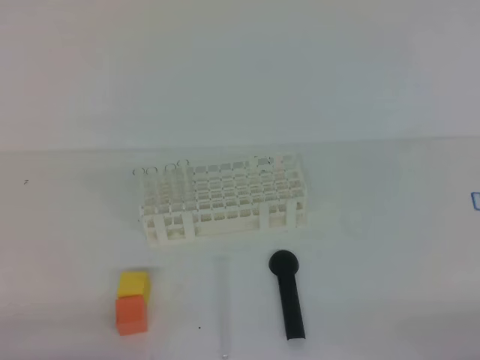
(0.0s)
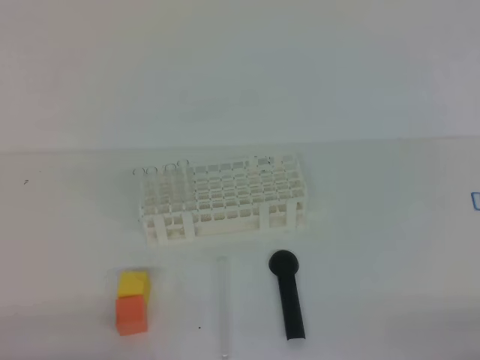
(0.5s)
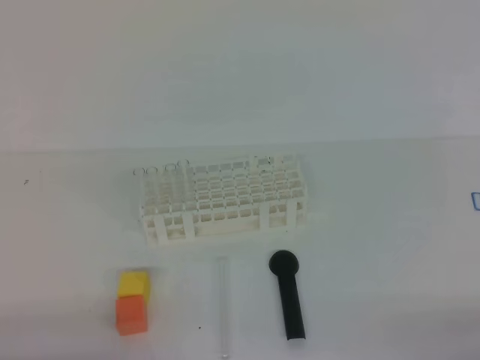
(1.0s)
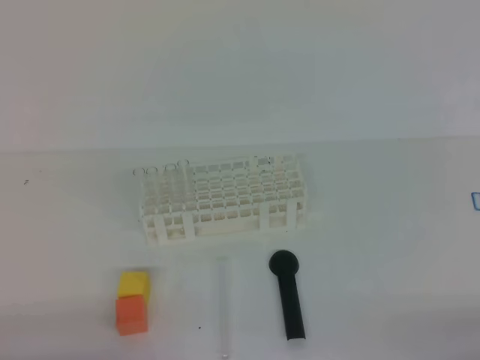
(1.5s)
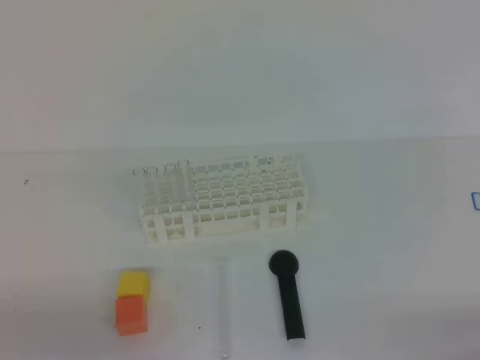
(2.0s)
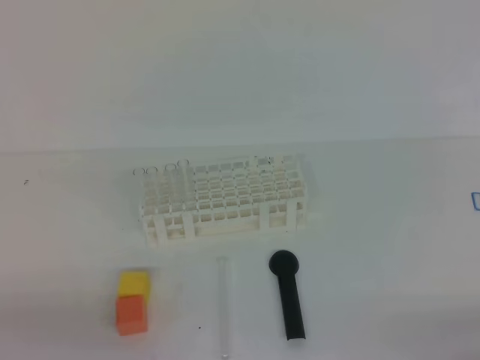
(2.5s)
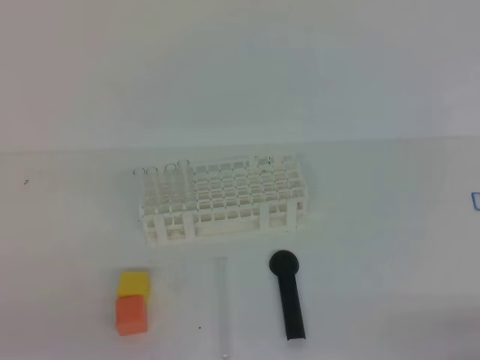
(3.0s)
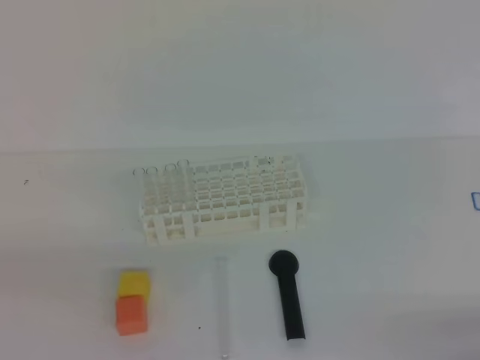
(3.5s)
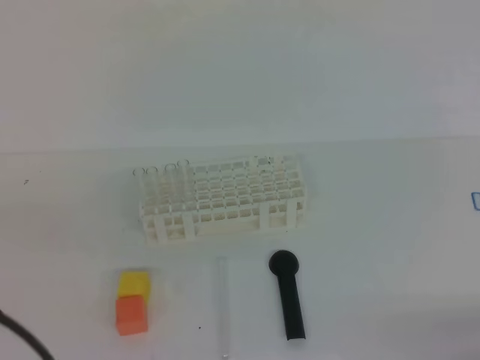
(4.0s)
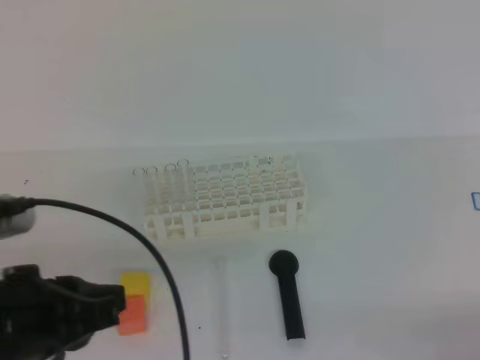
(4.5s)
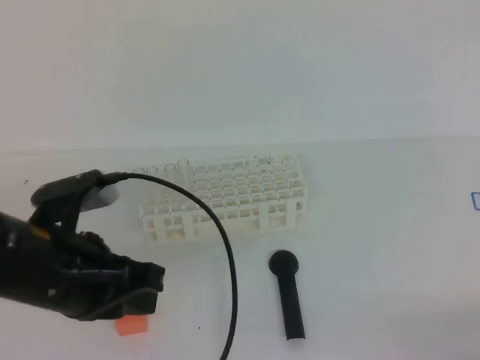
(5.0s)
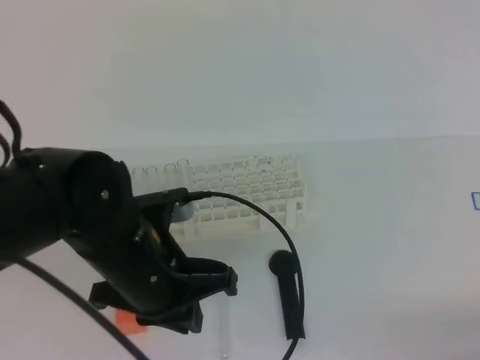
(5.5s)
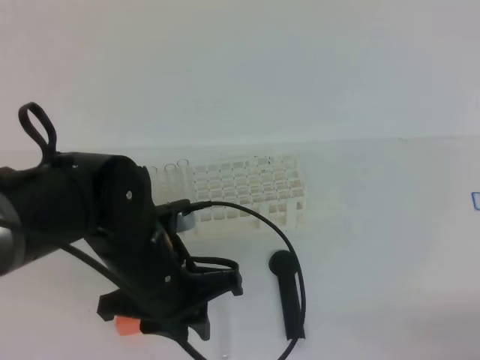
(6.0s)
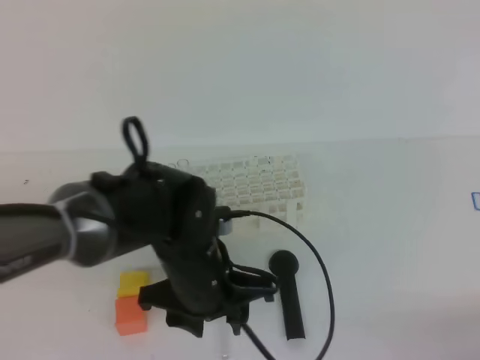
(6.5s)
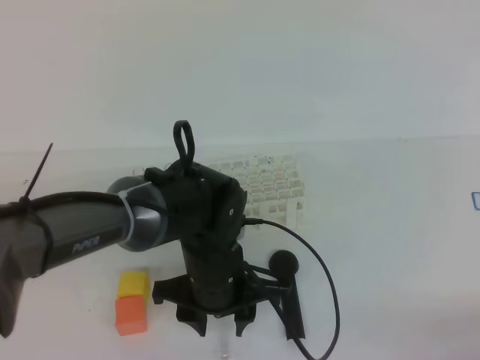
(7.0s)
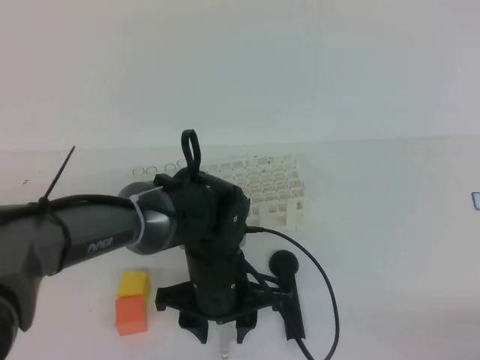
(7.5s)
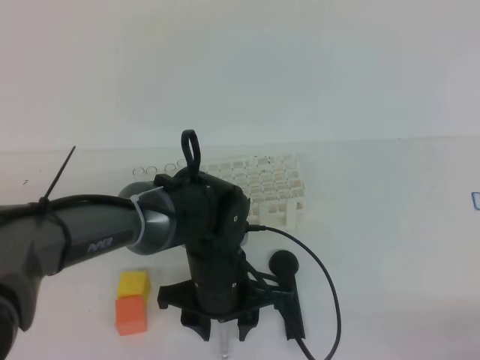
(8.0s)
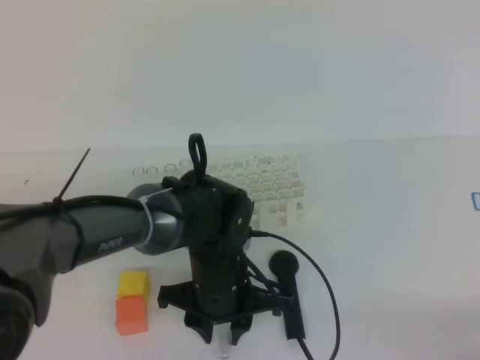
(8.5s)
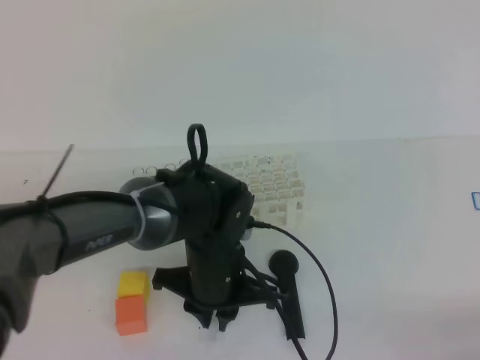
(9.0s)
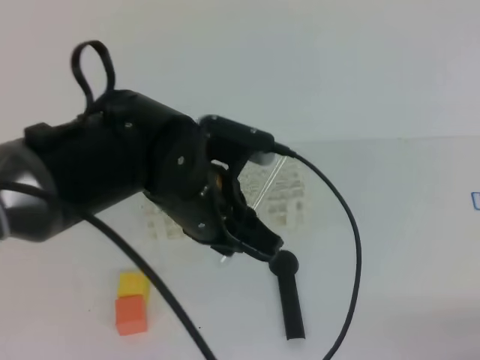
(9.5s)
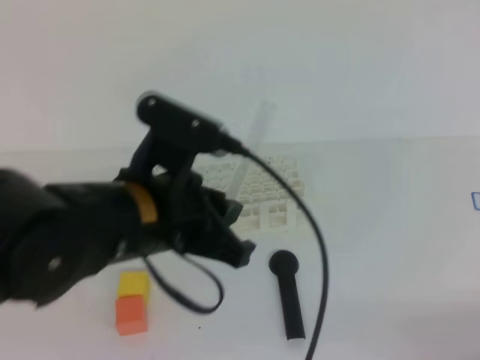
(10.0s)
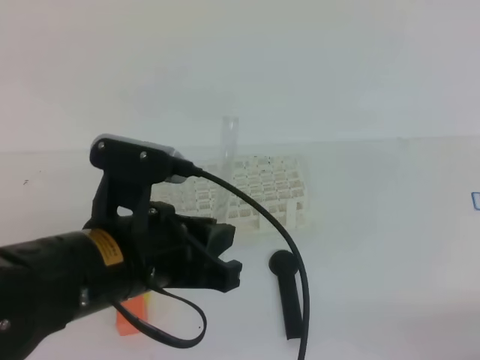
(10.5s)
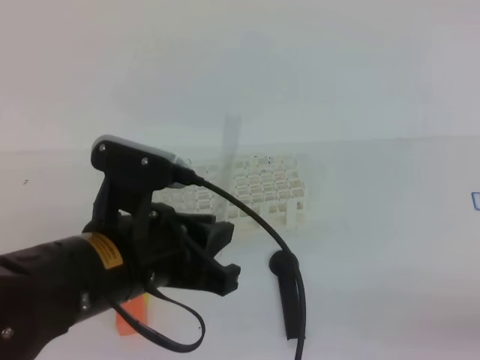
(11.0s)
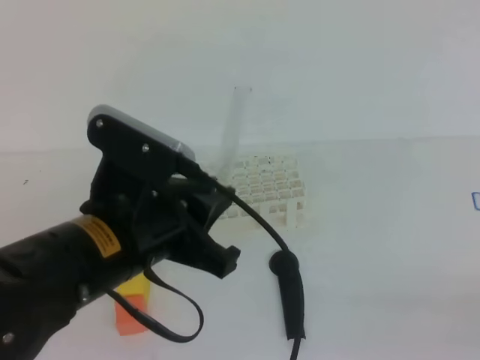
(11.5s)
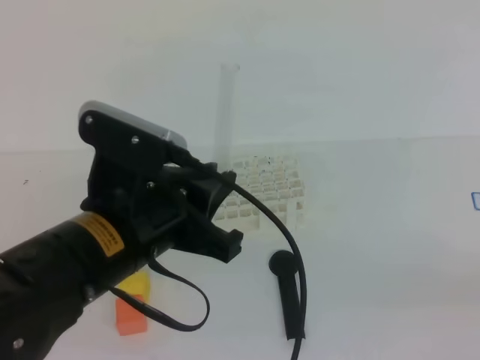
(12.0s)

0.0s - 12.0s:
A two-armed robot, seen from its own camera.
4.0s - 6.0s: The left gripper moves forward, to the right and downward, some 25 cm, and opens its fingers.
6.0s - 8.0s: The left gripper is displaced downward and to the right by approximately 10 cm, and opens.
8.0s - 10.0s: The left gripper travels upward by about 15 cm, and closes.
10.0s - 12.0s: The right gripper goes approximately 10 cm upward.

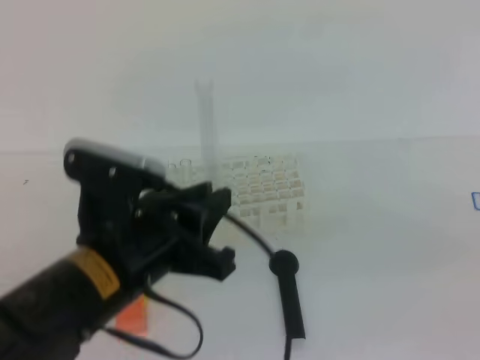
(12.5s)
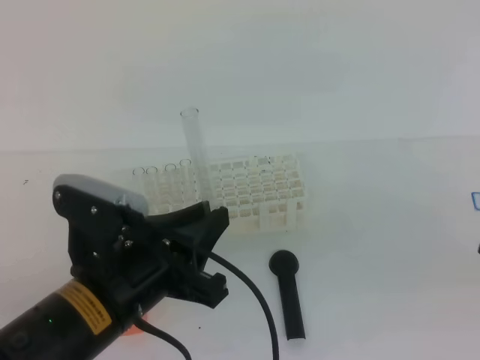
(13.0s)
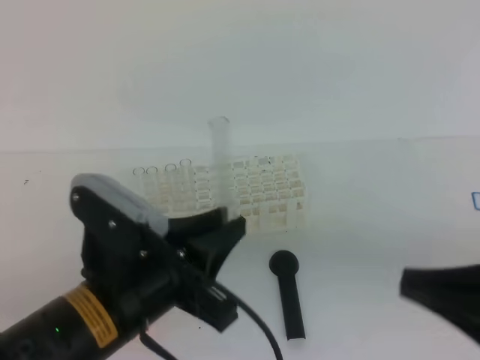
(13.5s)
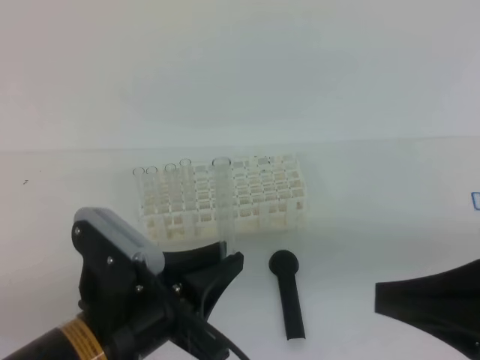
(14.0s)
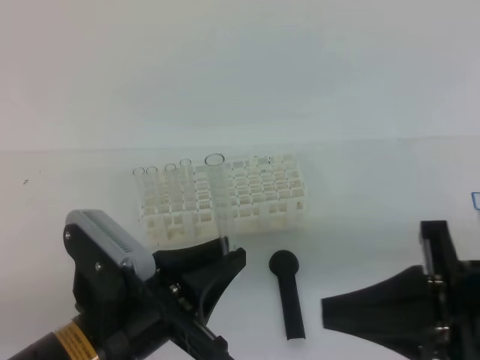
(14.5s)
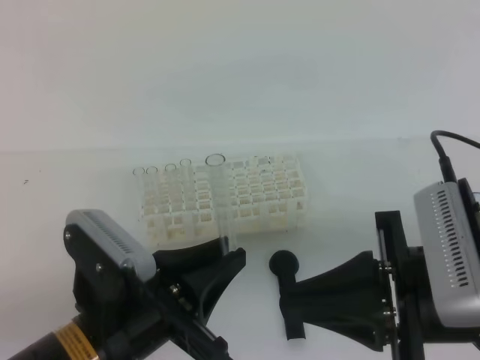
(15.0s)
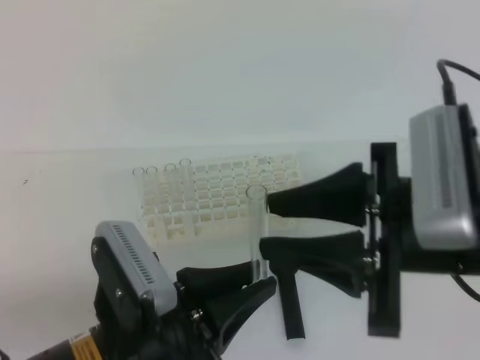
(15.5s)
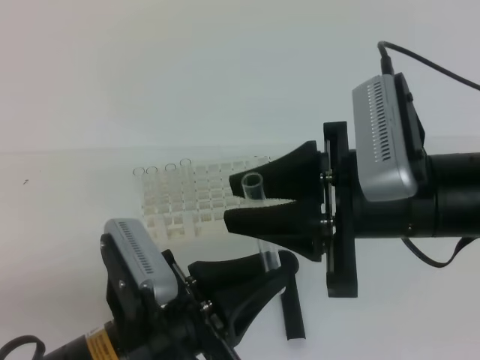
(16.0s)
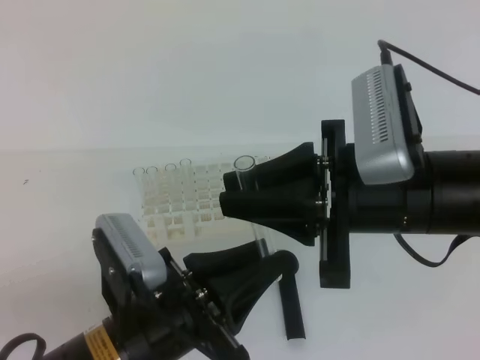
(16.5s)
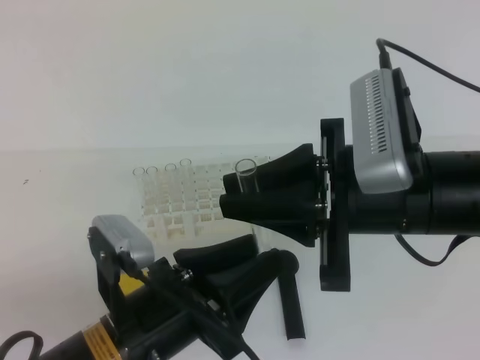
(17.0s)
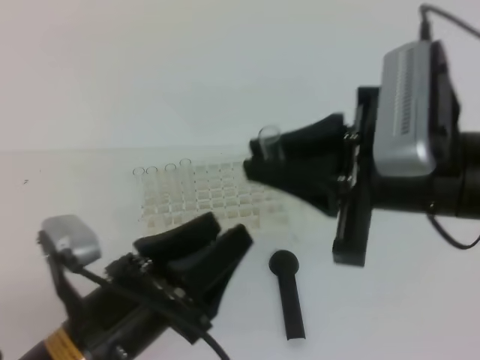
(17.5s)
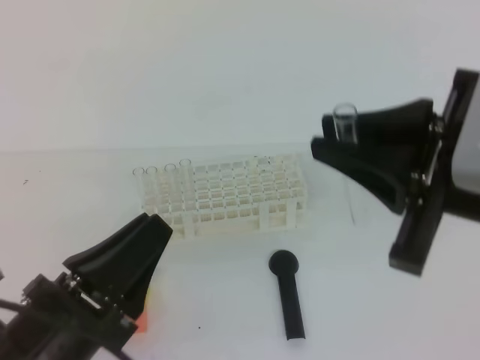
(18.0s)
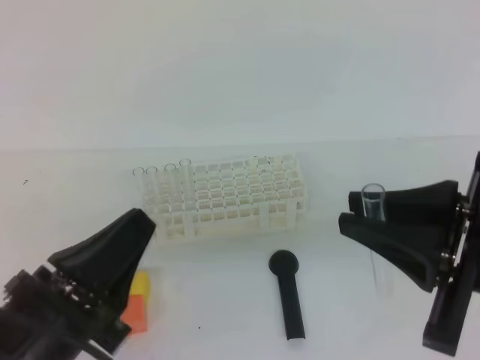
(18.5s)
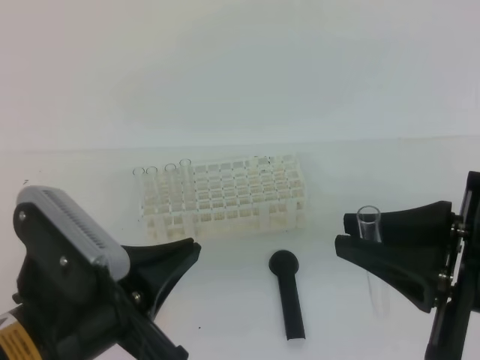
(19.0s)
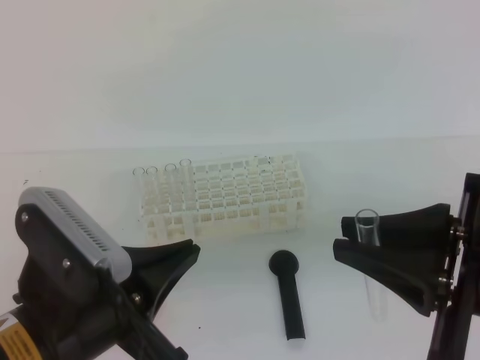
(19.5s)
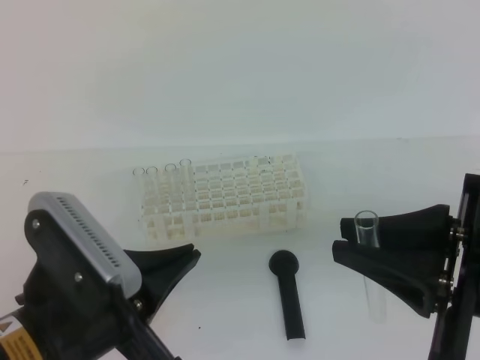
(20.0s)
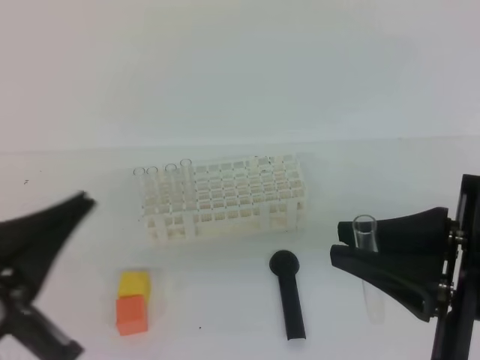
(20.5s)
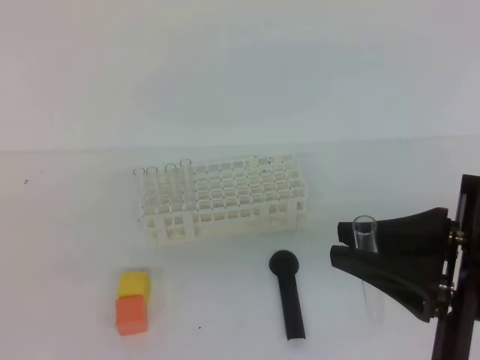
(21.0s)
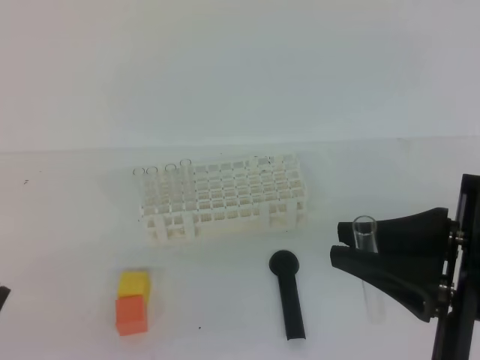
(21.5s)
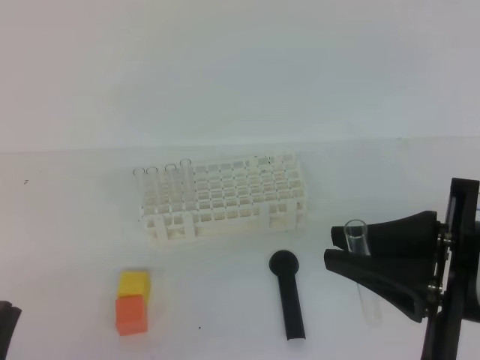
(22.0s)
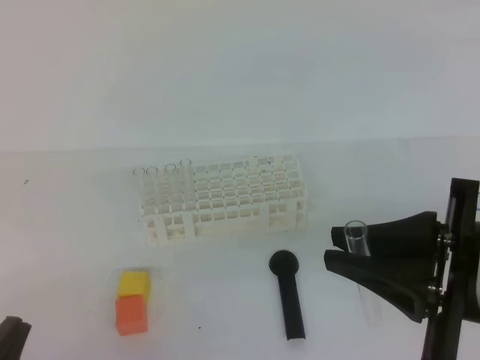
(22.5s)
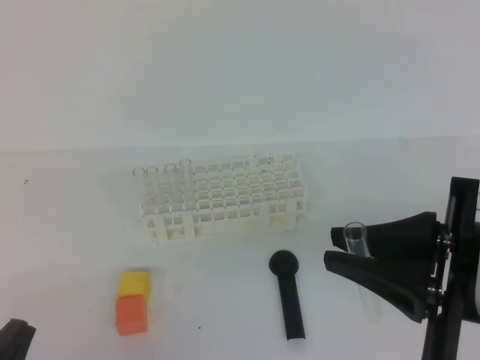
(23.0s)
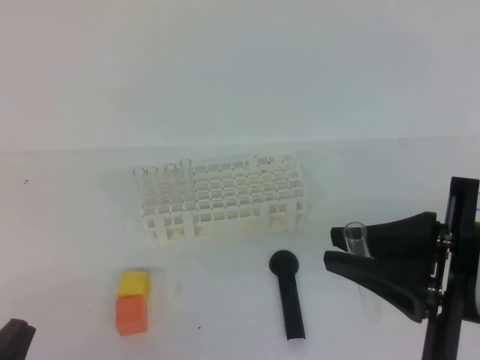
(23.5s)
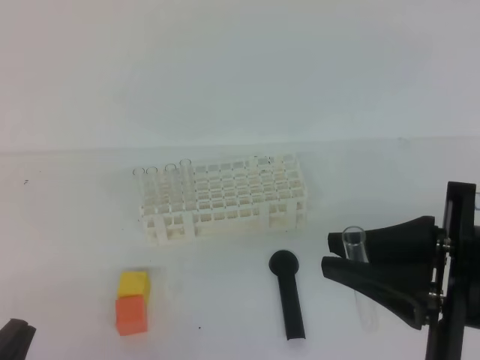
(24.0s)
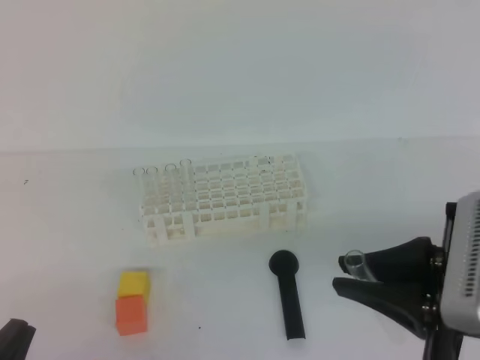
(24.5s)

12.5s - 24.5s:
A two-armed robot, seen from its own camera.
12.5s - 14.5s: The left gripper ends up approximately 5 cm from where it was. Meanwhile the right gripper moves to the left and forward, about 15 cm.
14.5s - 16.5s: The right gripper heads forward and to the left, covering some 10 cm, and opens up.
16.5s - 18.5s: The left gripper is displaced to the left by about 5 cm, and opens, then closes again. Meanwhile the right gripper moves to the right and backward, approximately 10 cm.
18.5s - 20.5s: The left gripper goes about 5 cm upward.
20.5s - 22.5s: The left gripper shifts some 10 cm downward and backward.
22.5s - 24.5s: The grippers stay close to where they were, moving slightly.

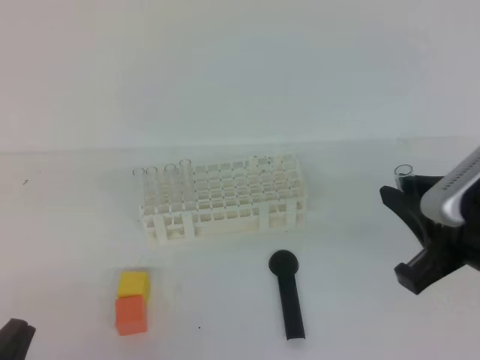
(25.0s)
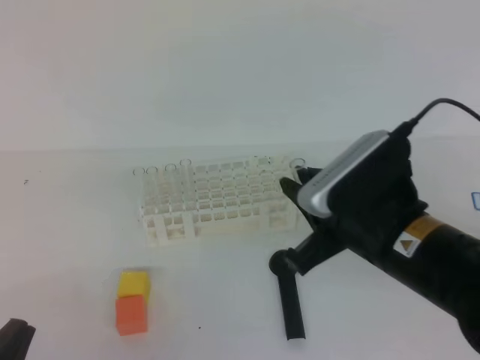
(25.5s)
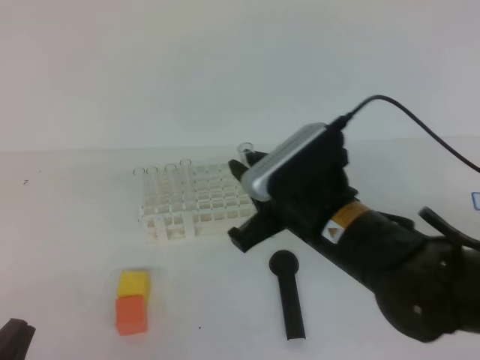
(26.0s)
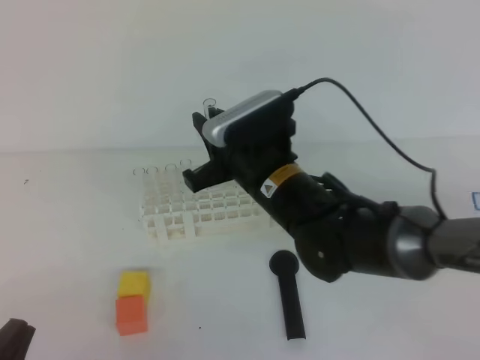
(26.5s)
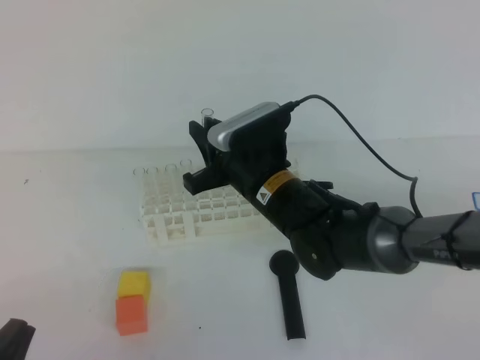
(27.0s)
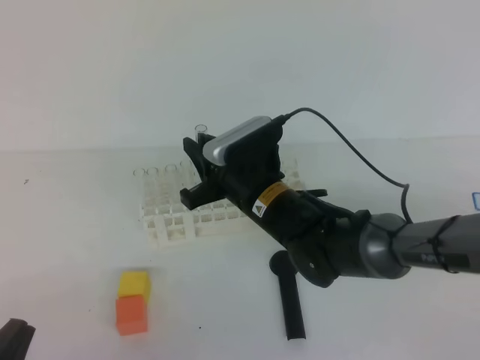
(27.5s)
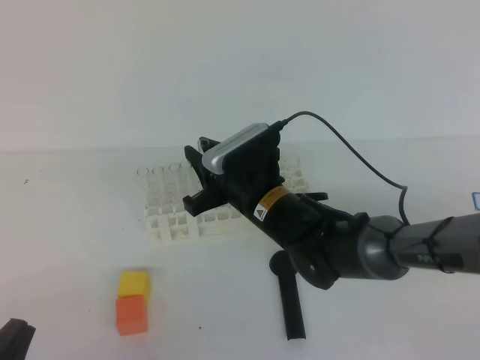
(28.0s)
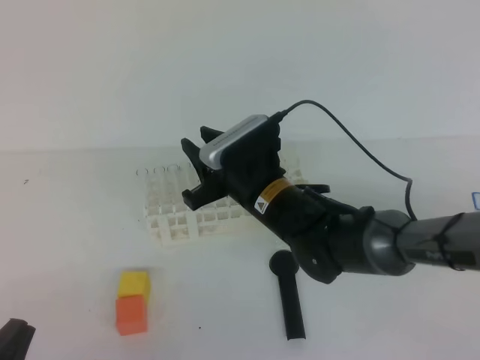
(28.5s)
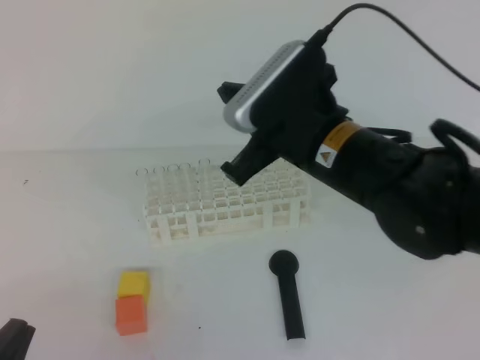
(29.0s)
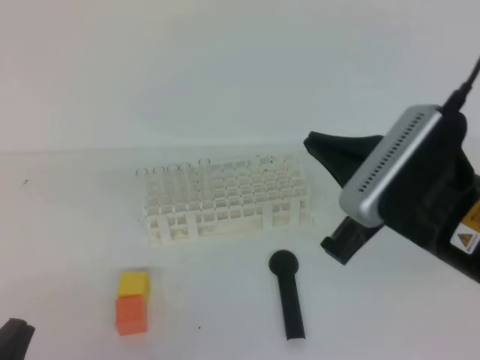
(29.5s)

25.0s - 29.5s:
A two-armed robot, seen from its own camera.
25.0s - 27.0s: The right gripper moves to the left, forward and downward, some 25 cm.
27.0s - 29.5s: The right gripper goes about 20 cm backward, to the right and upward, and closes its fingers.
